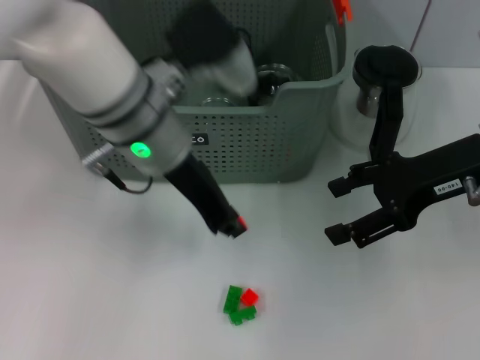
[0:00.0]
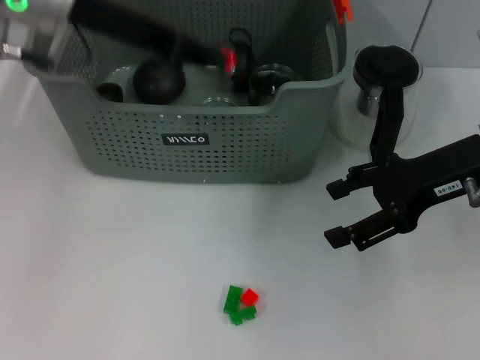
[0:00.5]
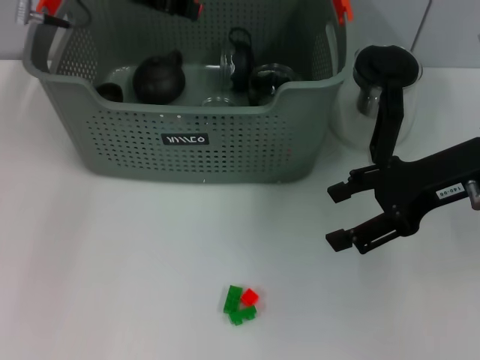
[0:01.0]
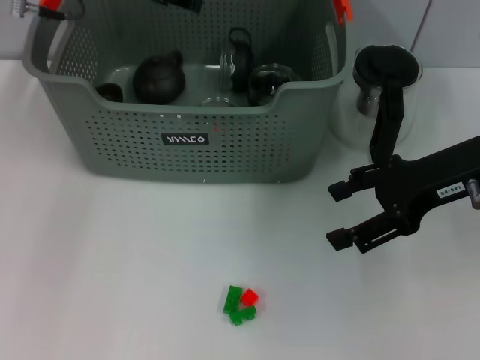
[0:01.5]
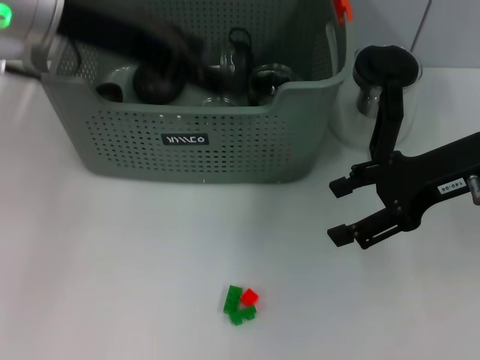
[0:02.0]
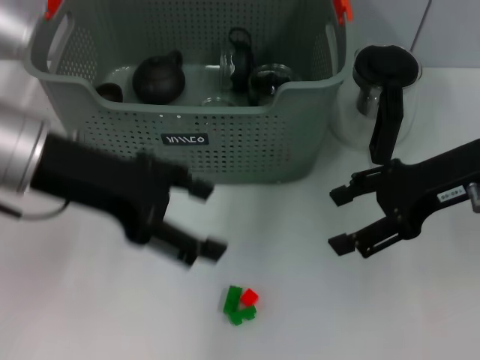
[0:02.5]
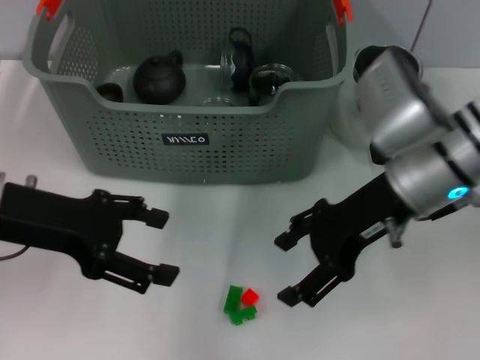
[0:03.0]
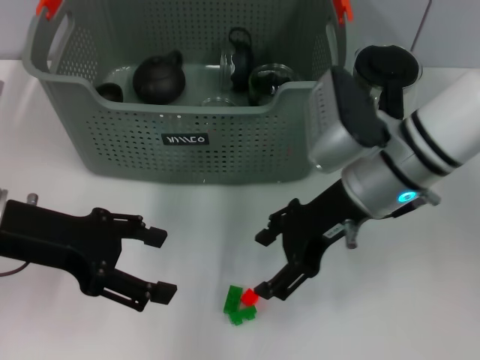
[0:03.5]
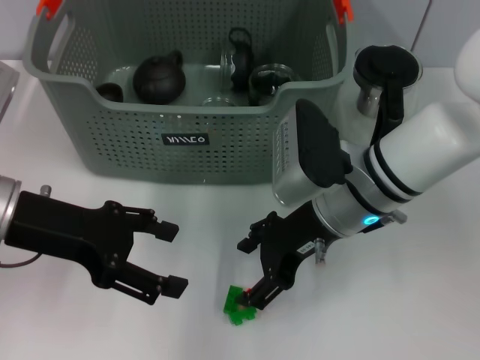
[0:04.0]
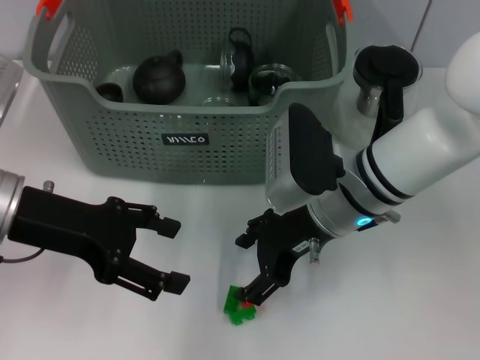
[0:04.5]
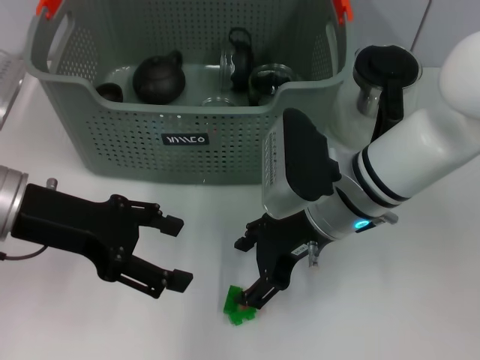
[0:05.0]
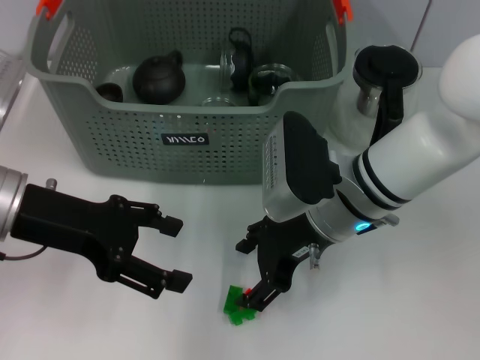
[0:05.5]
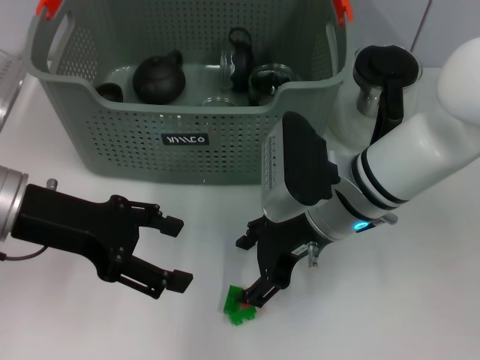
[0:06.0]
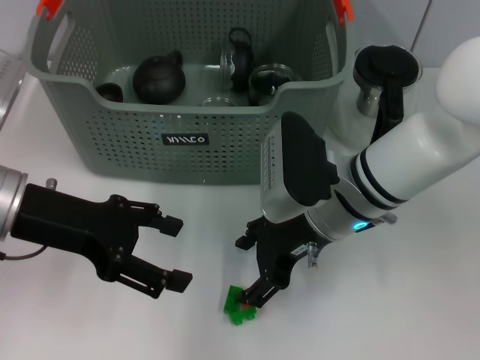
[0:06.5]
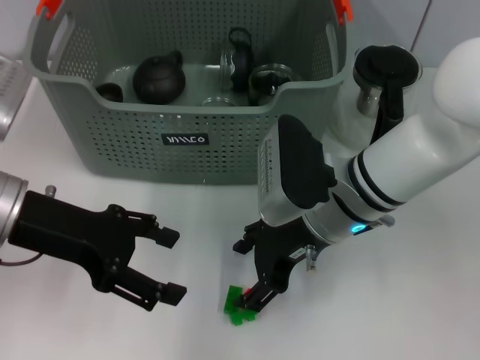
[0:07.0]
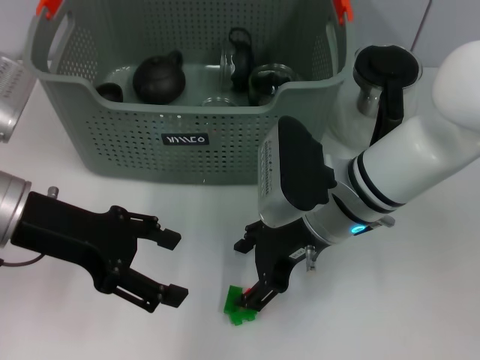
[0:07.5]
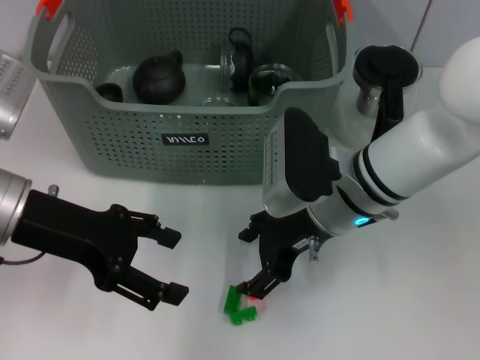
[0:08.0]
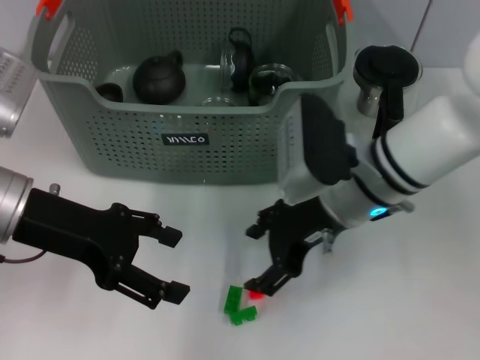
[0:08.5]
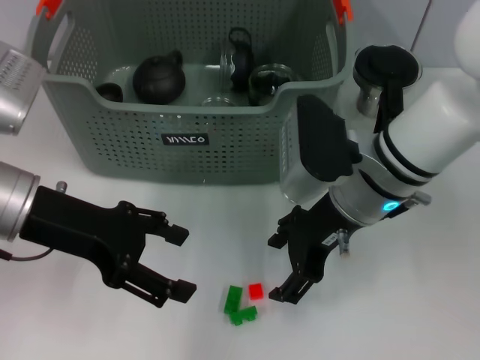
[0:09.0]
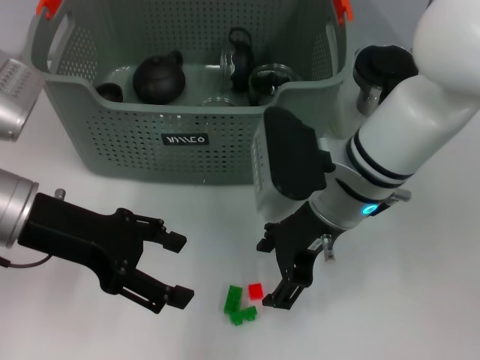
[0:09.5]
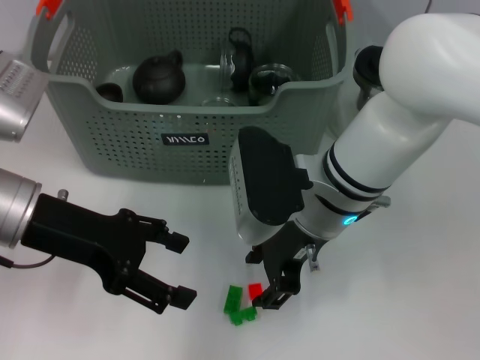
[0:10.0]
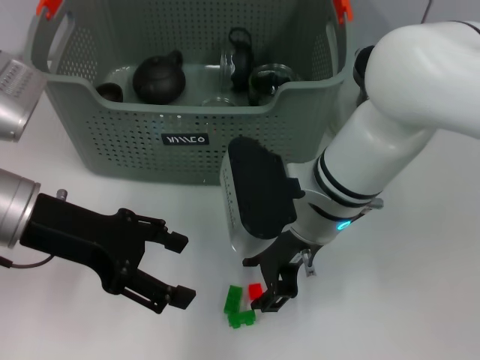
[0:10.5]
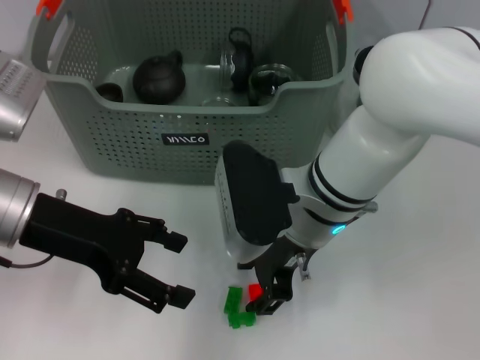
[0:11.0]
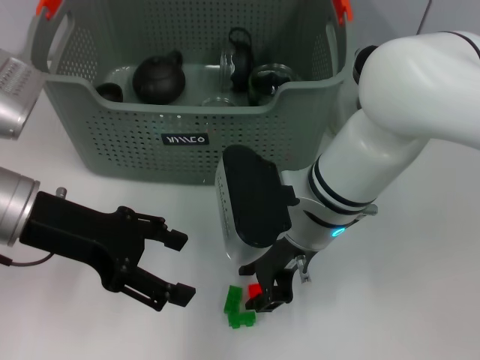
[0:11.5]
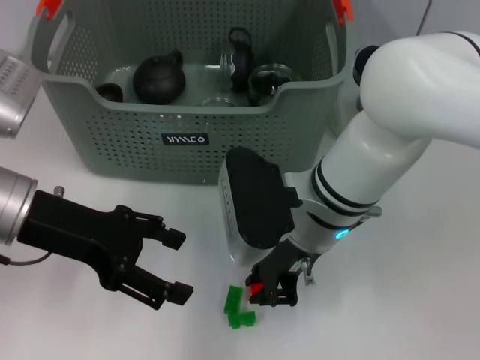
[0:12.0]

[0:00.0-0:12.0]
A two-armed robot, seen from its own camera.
Task of the whole recording: pick up the teacup on the table and place it into the storage bin, pick up the block on the table and place it into the storage bin.
Step, 0:00.0 to 0:01.5: Place the orange block in the storage box with left gripper.
Step, 0:02.0 to 0:11.5: Grasp the orange block with right gripper.
0:00.0 to 0:02.0: The left gripper goes approximately 15 cm upward and to the left, and opens its fingers.
0:02.0 to 0:04.0: The left gripper heads downward, backward and to the left, covering some 15 cm. The right gripper moves to the left and downward, some 15 cm.
0:04.0 to 0:06.0: The grippers make only small movements.
0:06.0 to 0:08.0: Both grippers stay put.
0:08.0 to 0:10.0: The grippers make only small movements.
0:10.0 to 0:12.0: The right gripper closes.

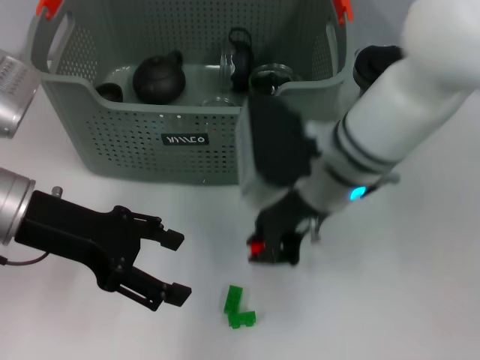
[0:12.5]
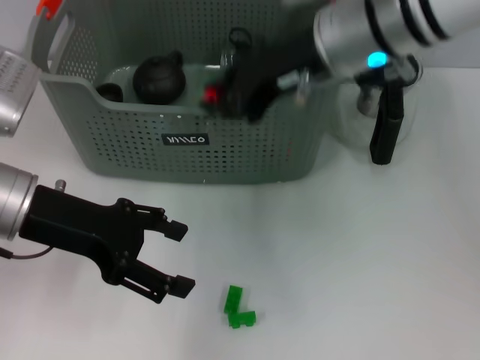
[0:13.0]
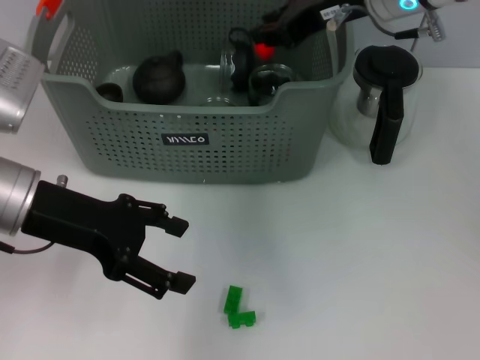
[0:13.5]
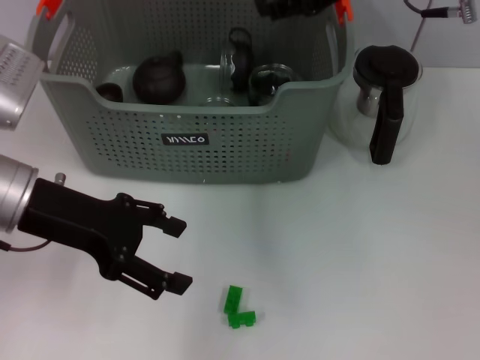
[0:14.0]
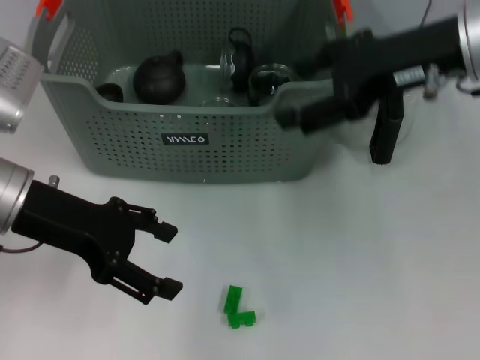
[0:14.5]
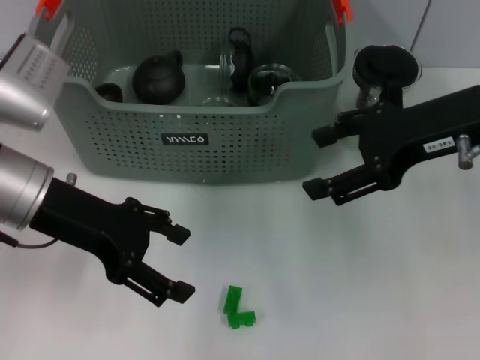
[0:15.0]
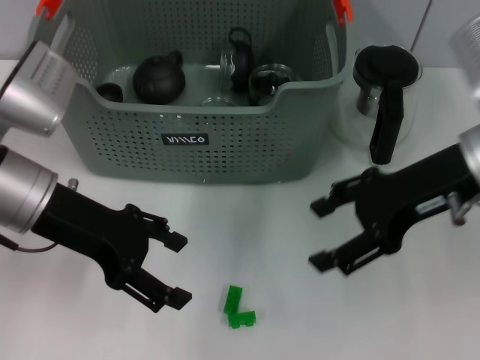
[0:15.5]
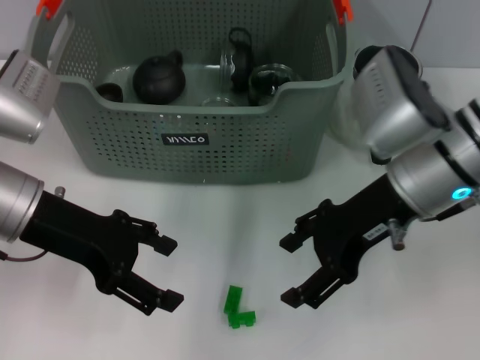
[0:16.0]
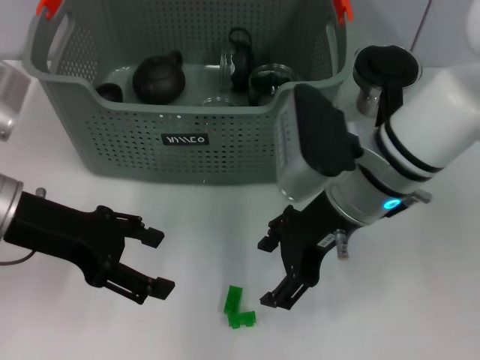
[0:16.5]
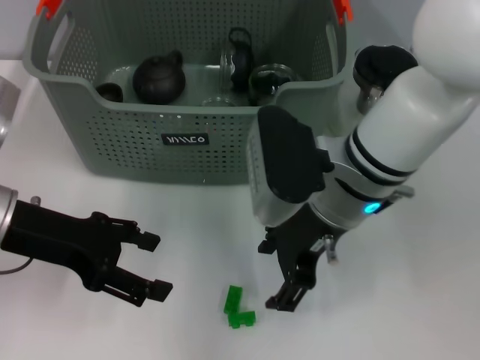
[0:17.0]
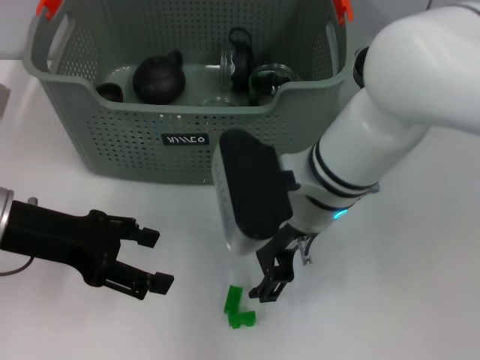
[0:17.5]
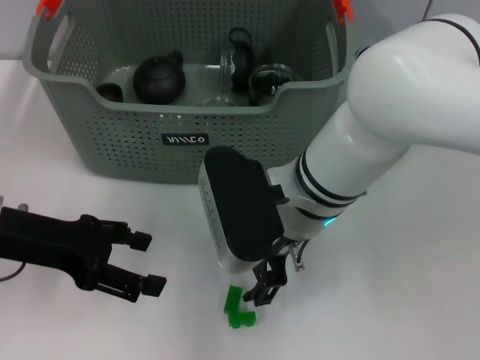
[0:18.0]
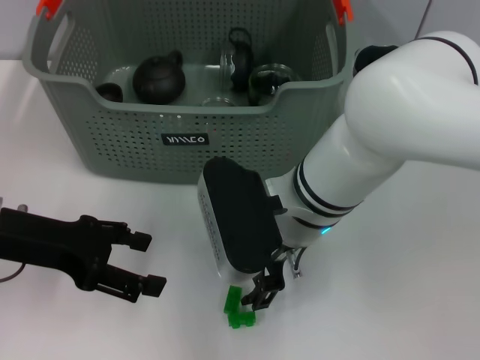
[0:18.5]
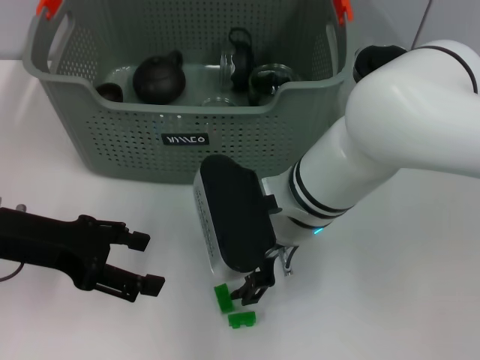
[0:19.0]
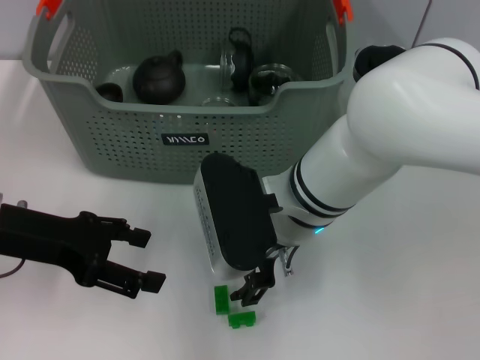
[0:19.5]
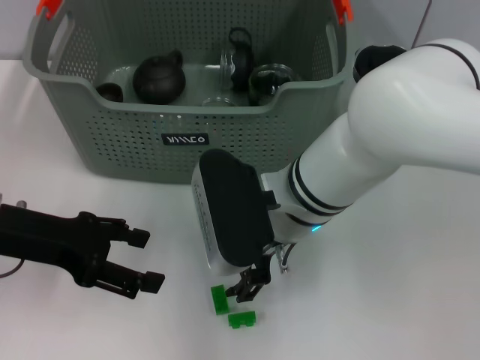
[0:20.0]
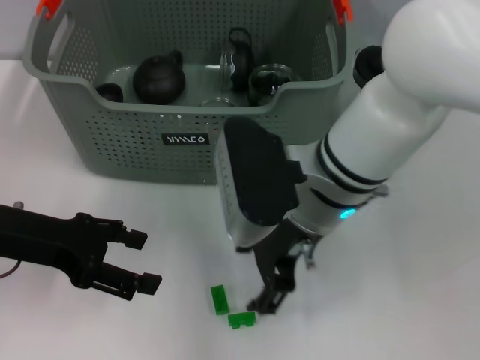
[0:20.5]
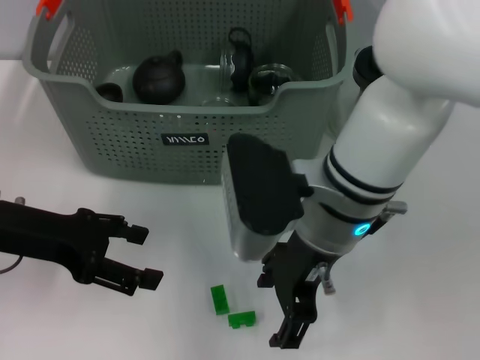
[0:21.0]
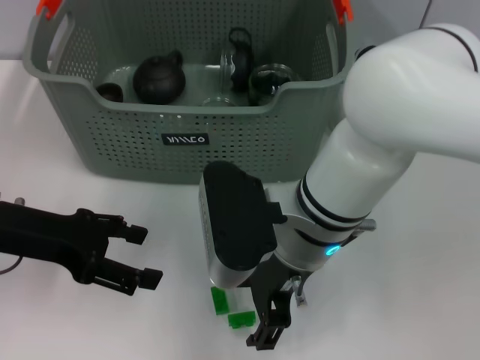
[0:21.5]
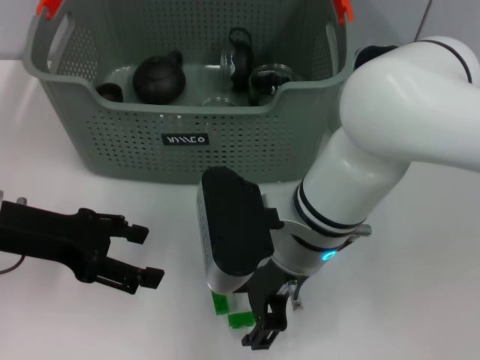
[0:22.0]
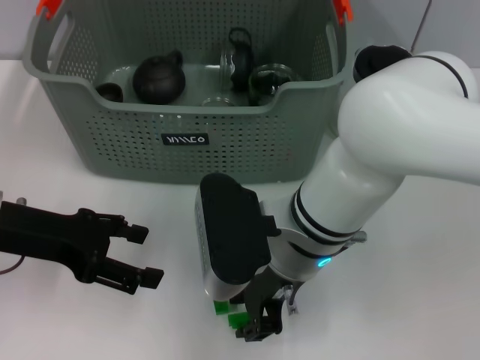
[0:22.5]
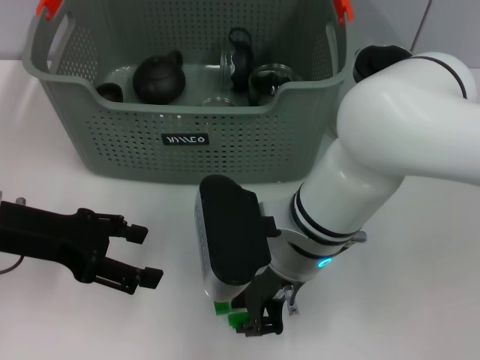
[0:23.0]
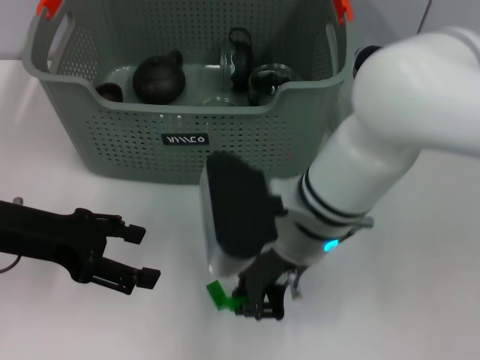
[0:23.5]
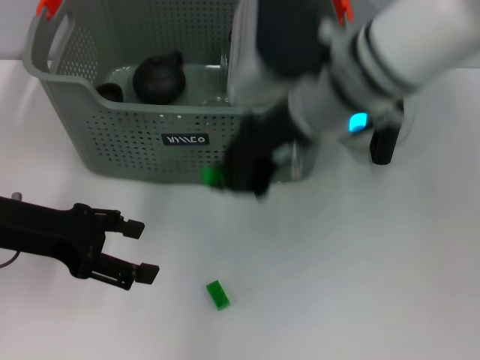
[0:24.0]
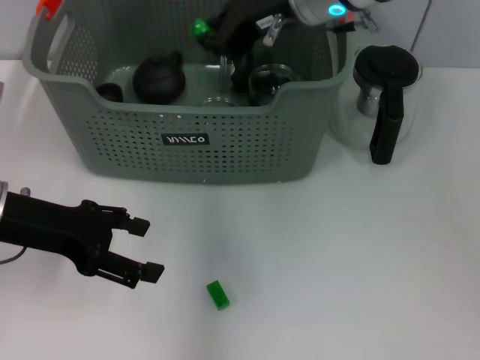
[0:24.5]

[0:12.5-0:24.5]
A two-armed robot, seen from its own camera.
Task of the whole recording: pick up the teacup on the table and place it into the storage bin, pick up the block on the table and place it into the storage bin.
Step, 0:12.5 to 0:14.5: Place the orange block in the storage box with right gripper.
Step, 0:15.0 to 0:23.0: Grasp the green block with right gripper.
0:12.5 to 0:14.5: The right gripper moves to the right and upward, approximately 15 cm, and opens.
0:14.5 to 0:16.5: The right gripper goes roughly 15 cm downward and to the left.
0:16.5 to 0:18.5: The right gripper heads to the left, covering some 5 cm.
0:18.5 to 0:20.5: The grippers move only a little.
0:20.5 to 0:22.5: The right gripper closes.
0:22.5 to 0:24.5: The right gripper shifts roughly 20 cm upward and forward.

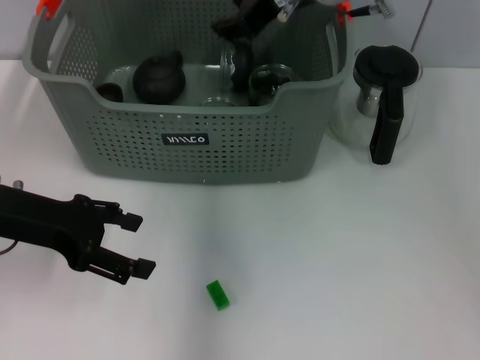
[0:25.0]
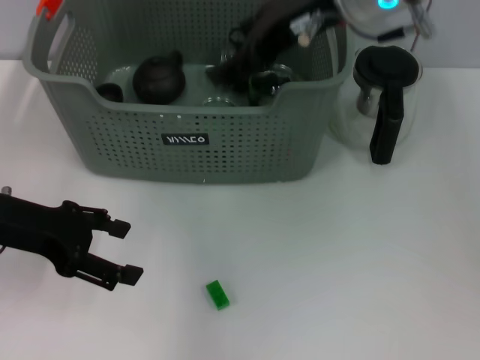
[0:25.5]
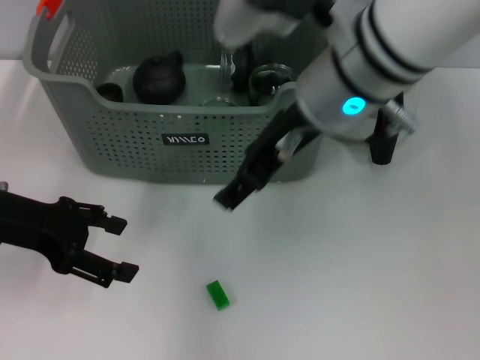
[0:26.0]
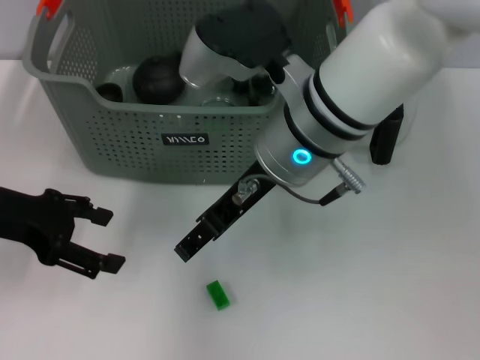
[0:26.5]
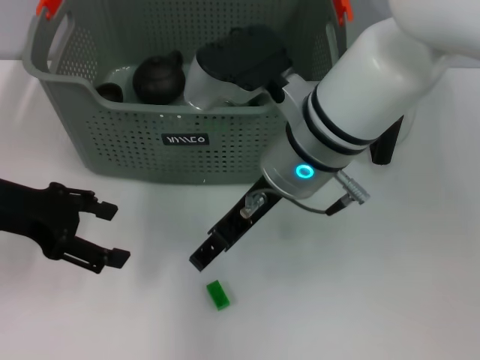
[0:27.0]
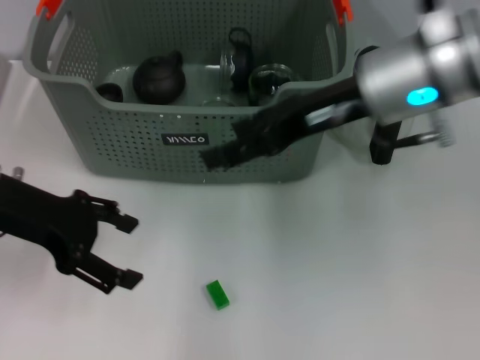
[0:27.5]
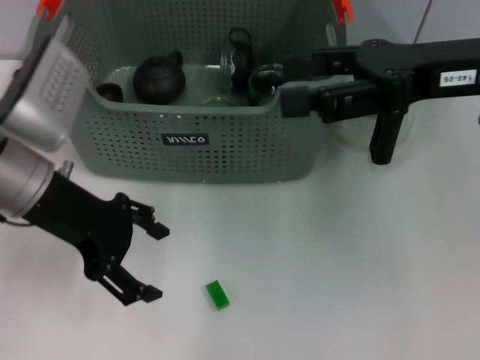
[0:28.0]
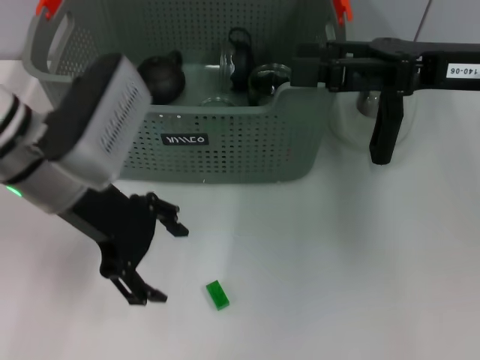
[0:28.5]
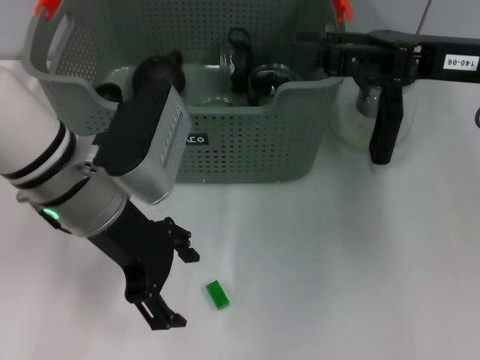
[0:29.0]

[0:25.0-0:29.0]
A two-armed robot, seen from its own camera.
Task of the whole recording: pick up the teacup on the table and place it into the storage bin, pick up the block on the table and place it into the storage bin.
0:25.0 to 0:27.0: The right gripper travels backward and downward by roughly 15 cm, and opens up.
0:27.0 to 0:29.0: Both grippers travel together to the right, some 15 cm.
